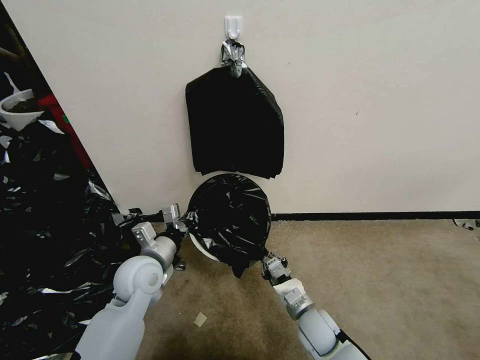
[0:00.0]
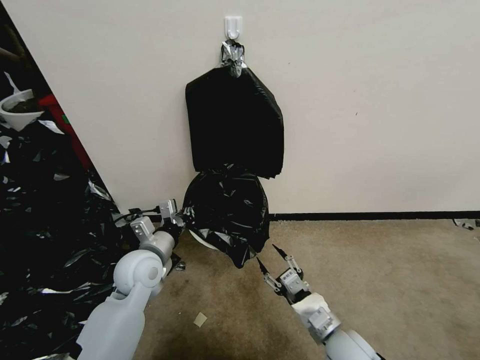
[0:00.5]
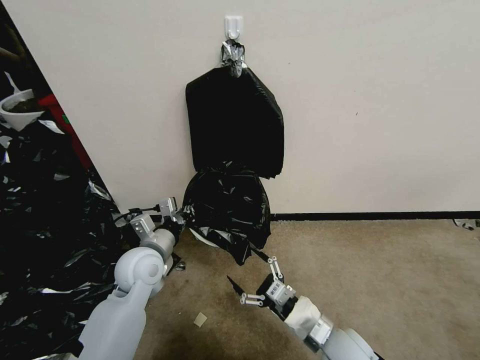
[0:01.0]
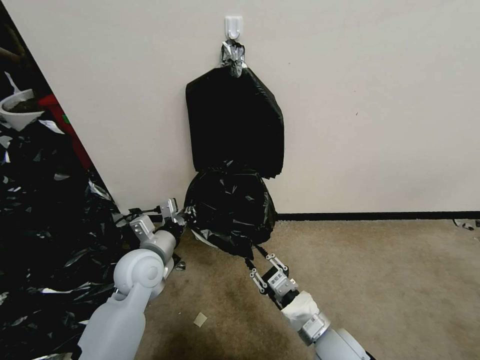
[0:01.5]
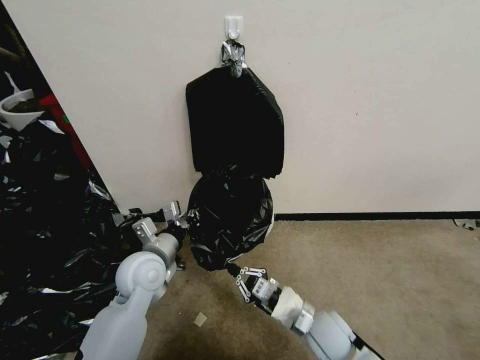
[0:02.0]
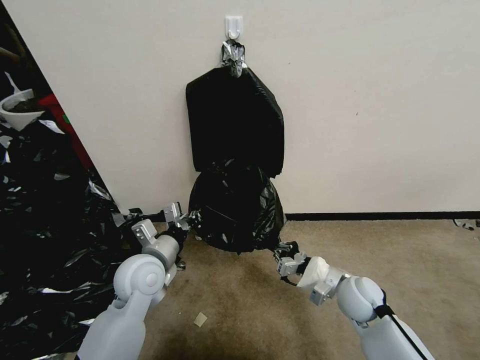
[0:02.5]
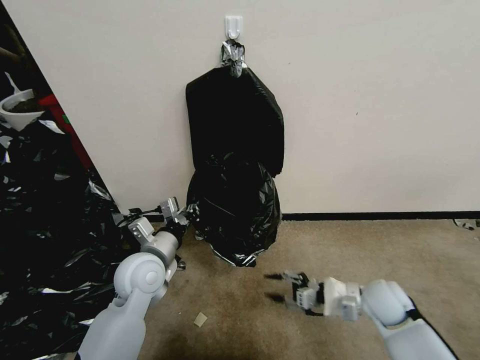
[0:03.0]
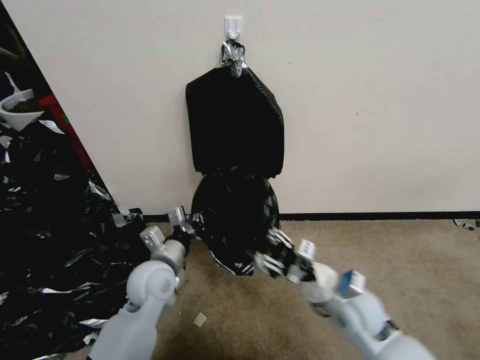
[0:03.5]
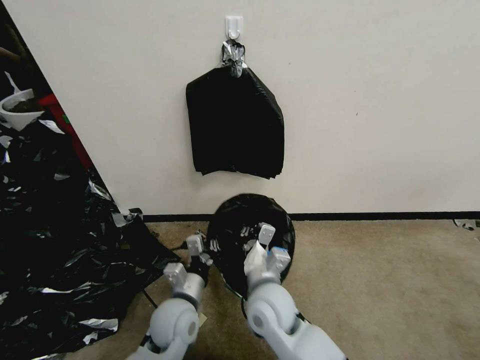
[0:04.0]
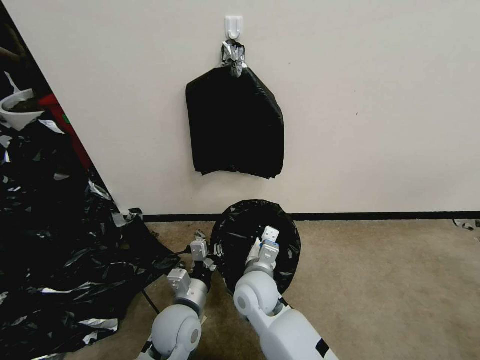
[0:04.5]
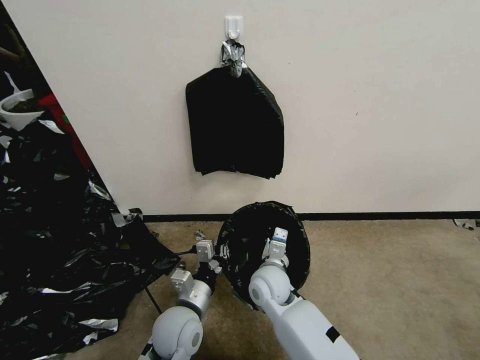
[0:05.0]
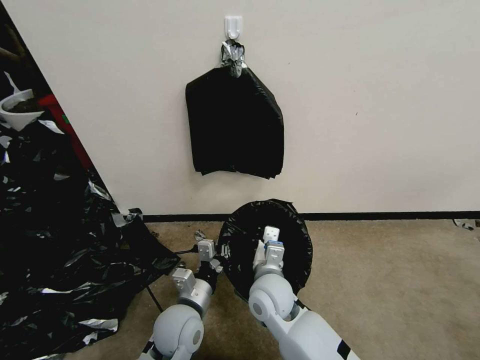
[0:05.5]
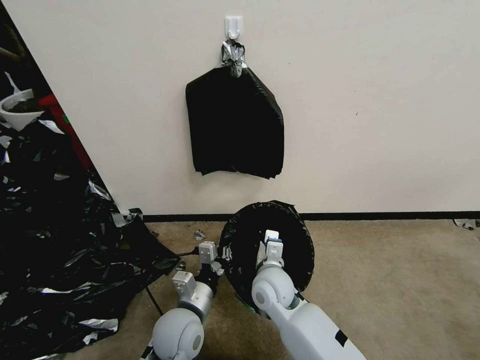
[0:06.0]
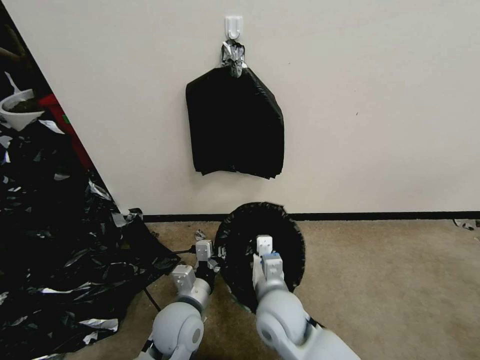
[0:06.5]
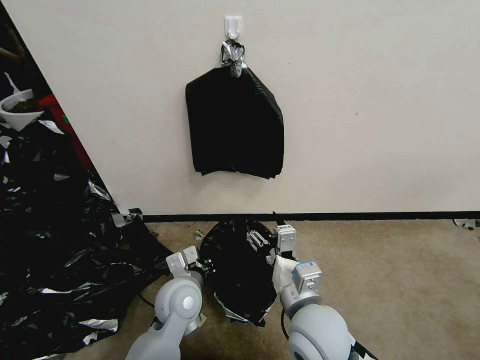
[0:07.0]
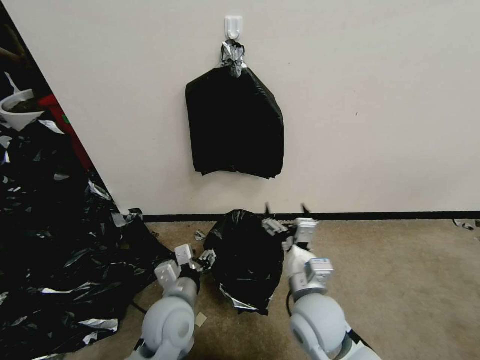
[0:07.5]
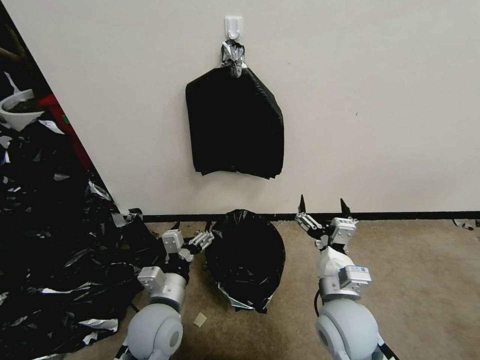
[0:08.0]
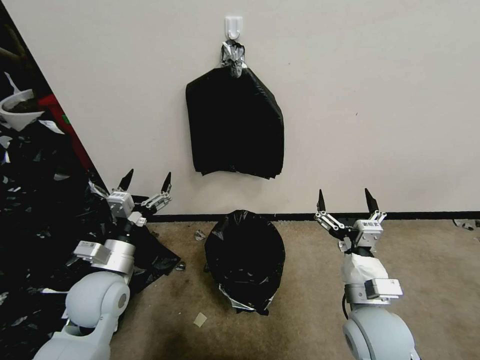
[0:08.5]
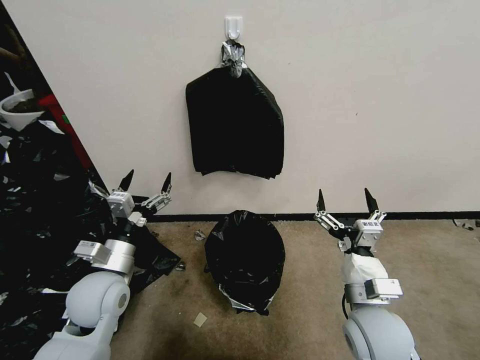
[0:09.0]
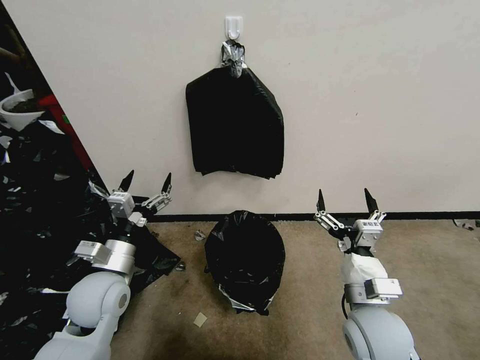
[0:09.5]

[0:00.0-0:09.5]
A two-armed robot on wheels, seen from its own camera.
Task of the whole recording: Place a trash bag onto the trash bin.
0:00.0 to 0:02.0: The right gripper shifts approximately 5 cm upward, and opens, then closes once more.
0:02.0 to 0:04.0: The right gripper goes approximately 15 cm to the left and upward, and opens and closes again. Meanwhile the left gripper travels downward, backward and to the right by some 10 cm.
0:05.5 to 0:07.5: The right gripper travels to the right and backward by roughly 10 cm, and opens its fingers. Meanwhile the left gripper opens.
0:07.5 to 0:09.5: The left gripper is displaced to the left and upward by about 15 cm, and opens up. Meanwhile the right gripper goes about 10 cm to the right.
